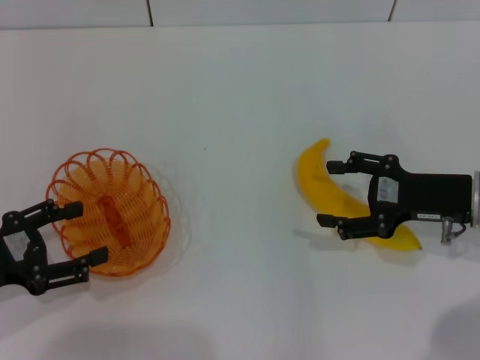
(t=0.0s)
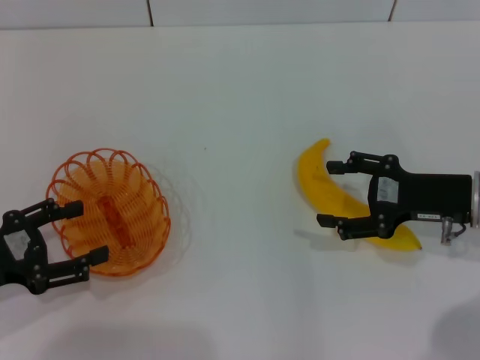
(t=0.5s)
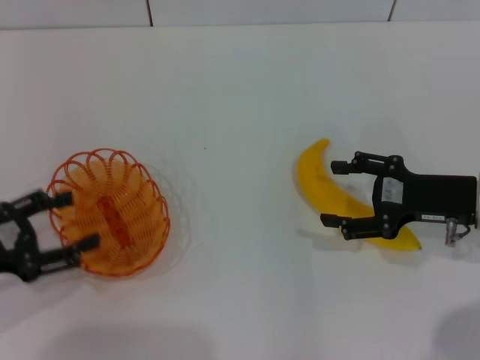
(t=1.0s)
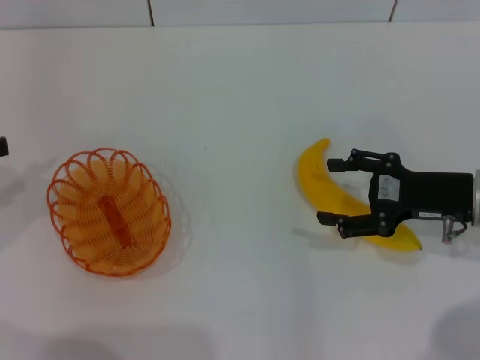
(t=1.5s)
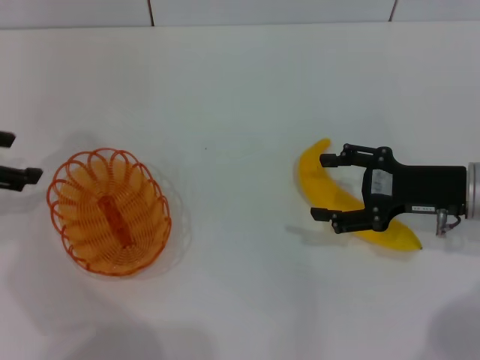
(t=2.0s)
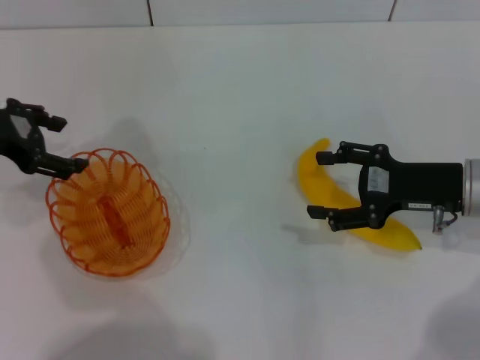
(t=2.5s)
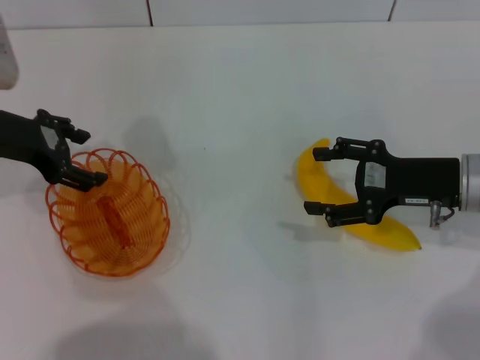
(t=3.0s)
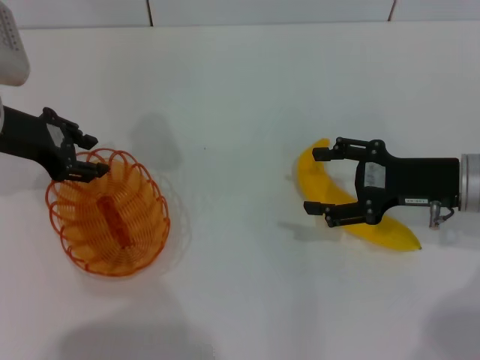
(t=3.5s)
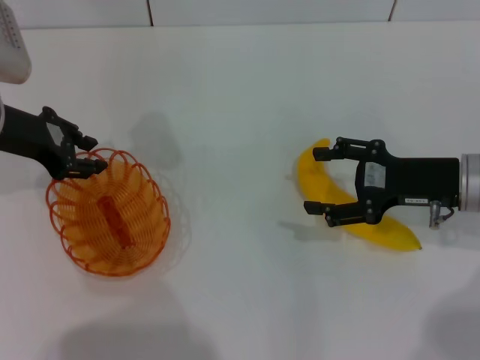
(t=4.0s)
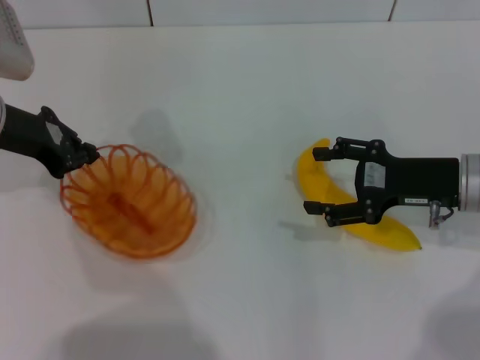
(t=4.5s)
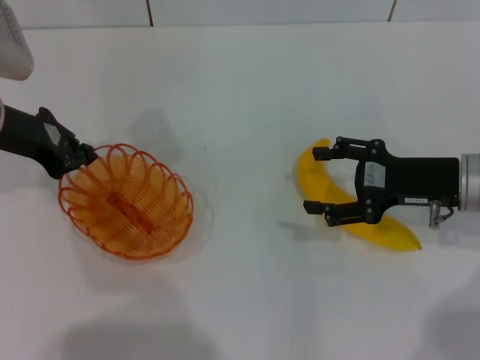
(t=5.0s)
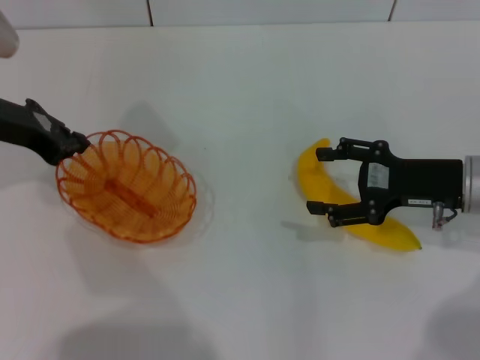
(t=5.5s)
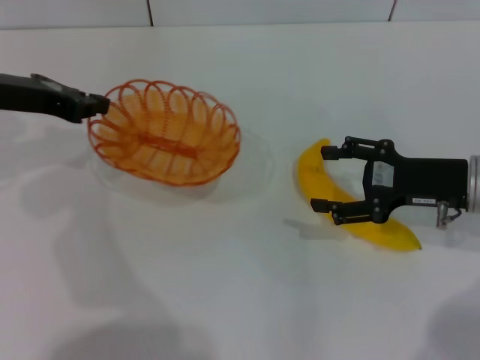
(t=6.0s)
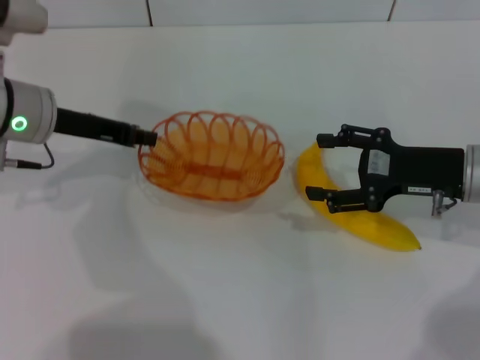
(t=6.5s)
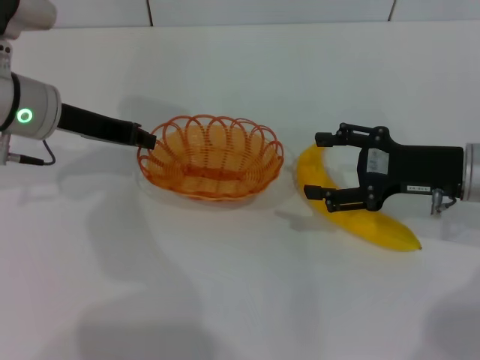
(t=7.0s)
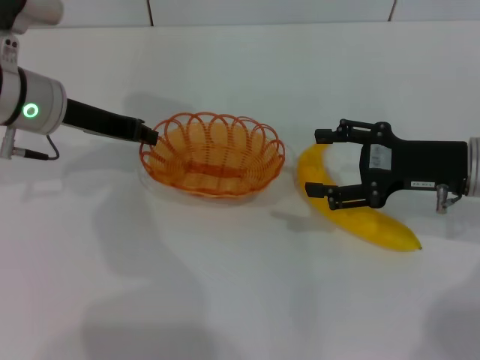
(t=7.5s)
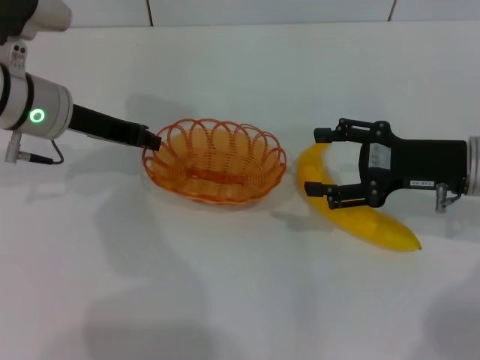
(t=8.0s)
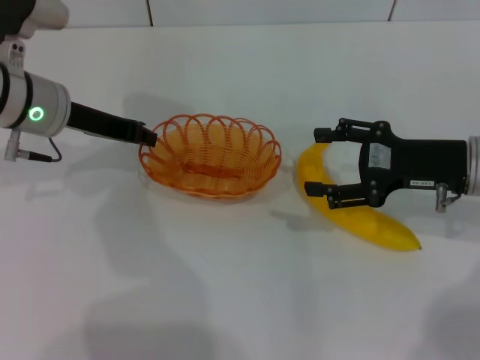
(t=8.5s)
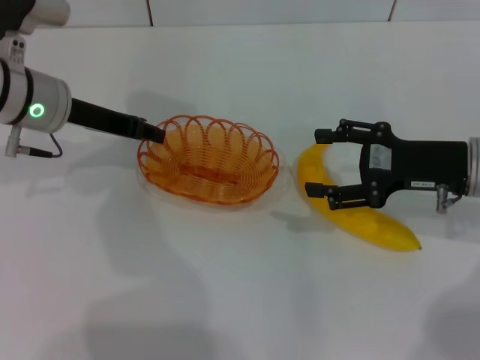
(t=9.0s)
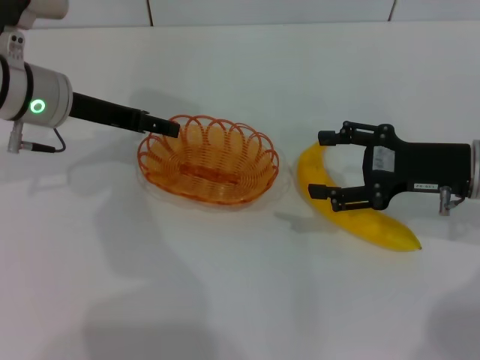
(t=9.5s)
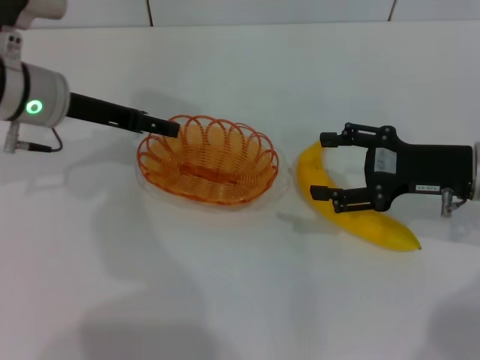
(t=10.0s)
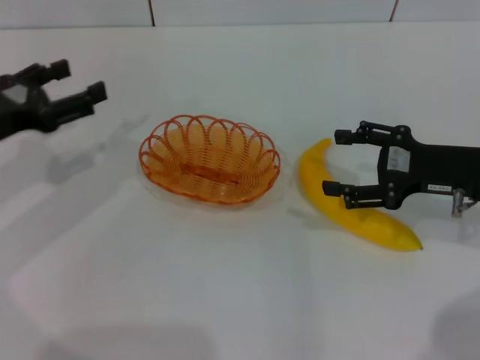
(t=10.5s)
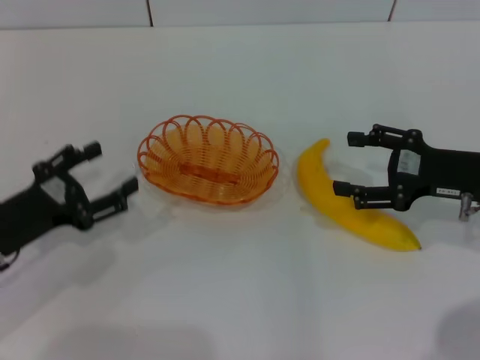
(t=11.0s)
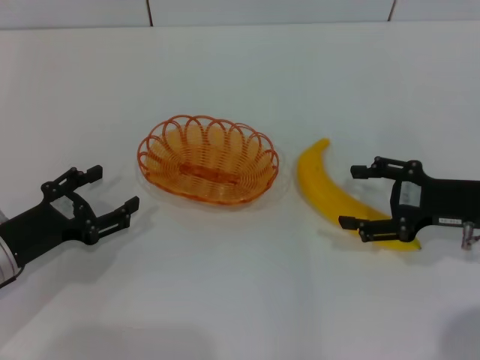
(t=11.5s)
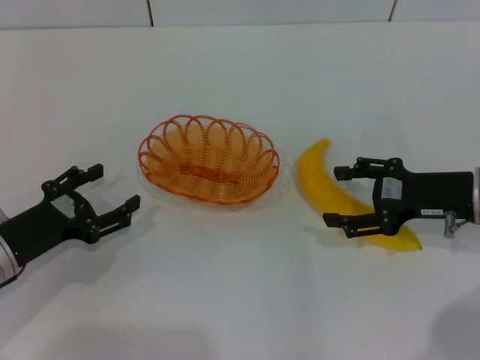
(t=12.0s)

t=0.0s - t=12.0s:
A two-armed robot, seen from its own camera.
Step, t=0.0s - t=5.5s: Pick up the basket with the left gripper.
Step, t=6.0s - t=9.5s: Place the basket in the center of view with the left gripper.
t=0.0s - t=2.0s: The left gripper shifts about 15 cm forward and upward.
t=2.0s - t=4.0s: The left gripper moves to the right, some 10 cm, and closes.
t=4.0s - t=6.0s: The left gripper closes.
t=6.0s - t=8.0s: The left gripper travels to the right by some 5 cm.
t=8.0s - t=10.0s: The left gripper opens its fingers.
t=10.0s - t=12.0s: The left gripper moves backward, downward and to the left, roughly 20 cm.

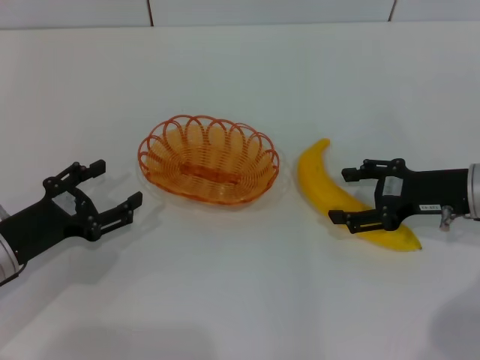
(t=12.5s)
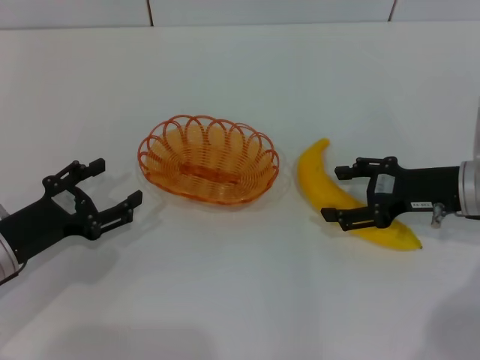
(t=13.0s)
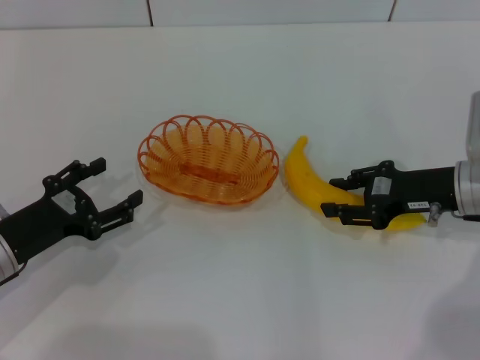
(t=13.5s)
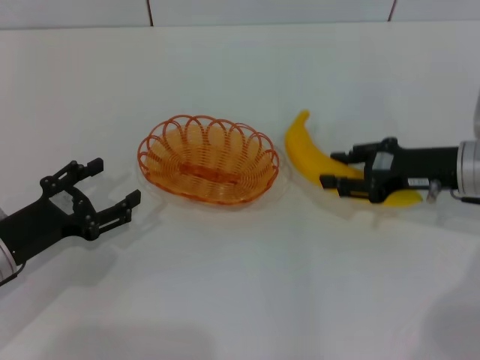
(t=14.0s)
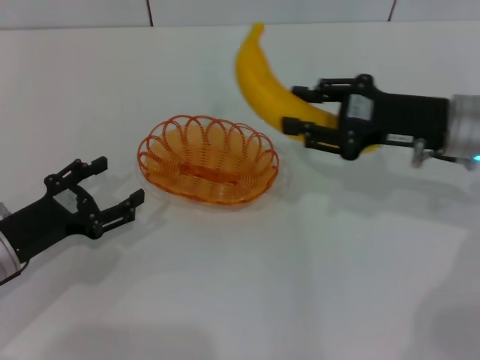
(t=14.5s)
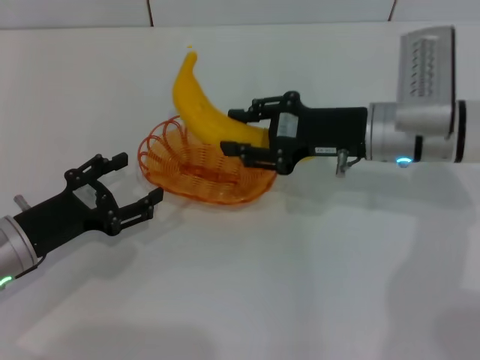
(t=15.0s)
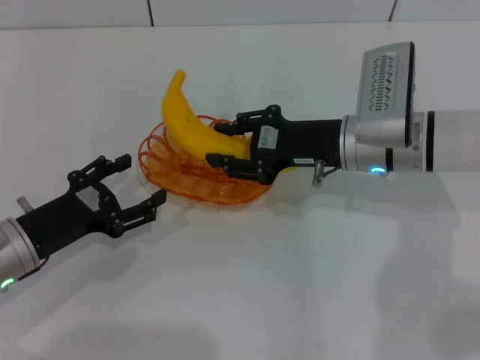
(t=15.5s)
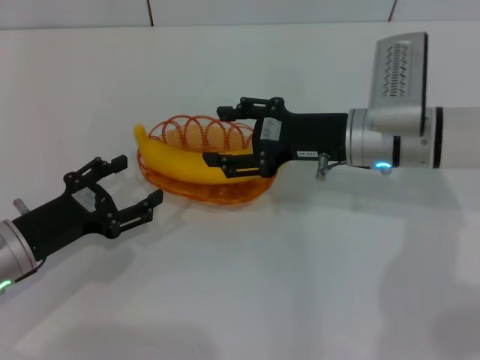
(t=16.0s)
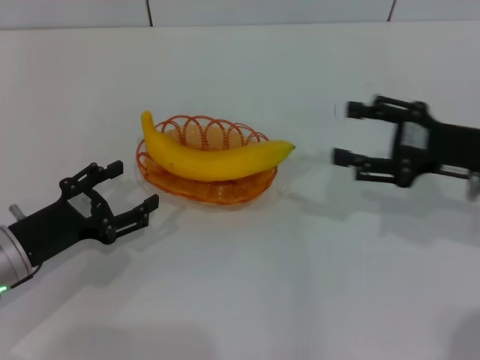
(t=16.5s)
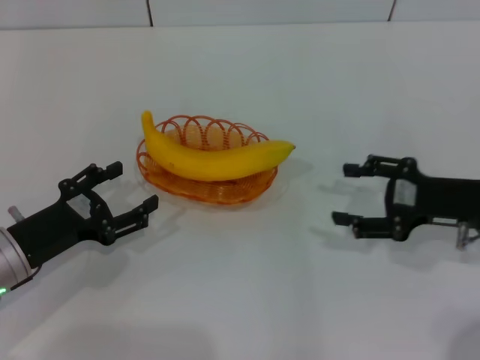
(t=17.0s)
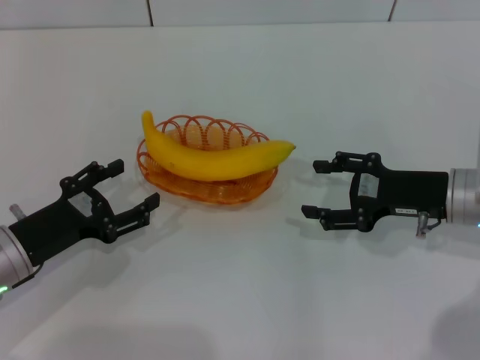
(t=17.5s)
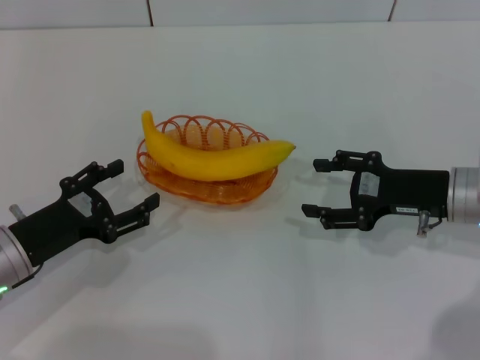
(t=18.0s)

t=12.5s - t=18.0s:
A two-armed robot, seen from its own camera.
Step, t=14.5s - t=16.0s: Place the banana into the basket with the right gripper.
t=12.5s - t=14.5s: The right gripper moves upward, approximately 5 cm, and closes its fingers.
t=14.5s - t=16.0s: The right gripper shifts about 10 cm to the left.
t=16.0s - t=18.0s: The right gripper moves to the right and backward, approximately 10 cm, and opens its fingers.

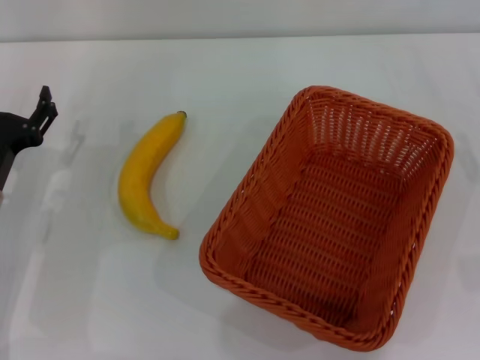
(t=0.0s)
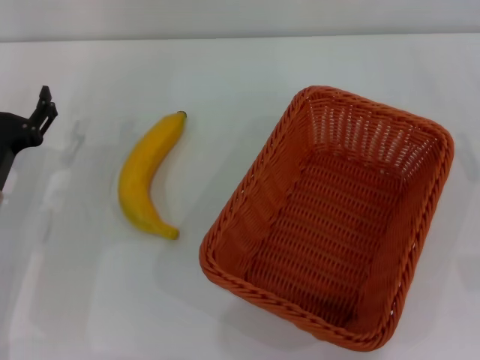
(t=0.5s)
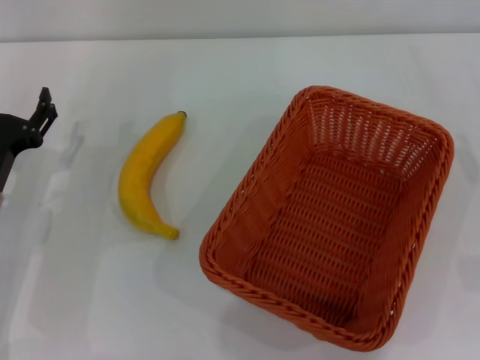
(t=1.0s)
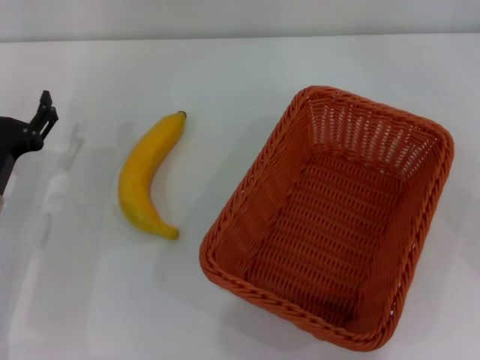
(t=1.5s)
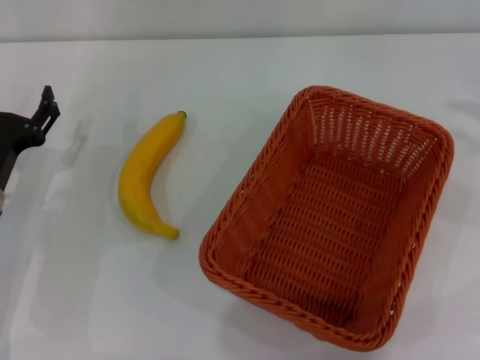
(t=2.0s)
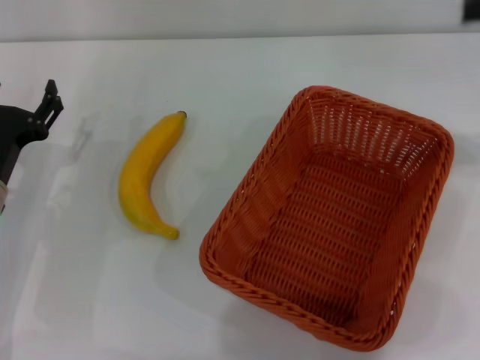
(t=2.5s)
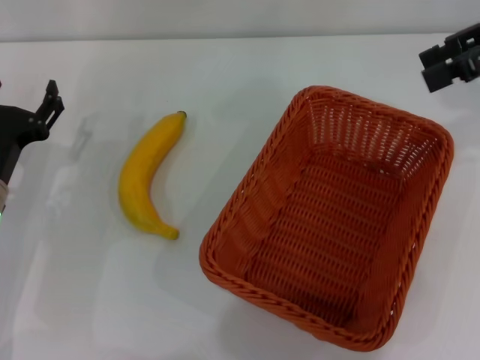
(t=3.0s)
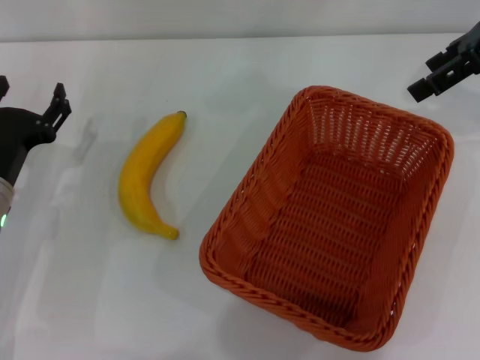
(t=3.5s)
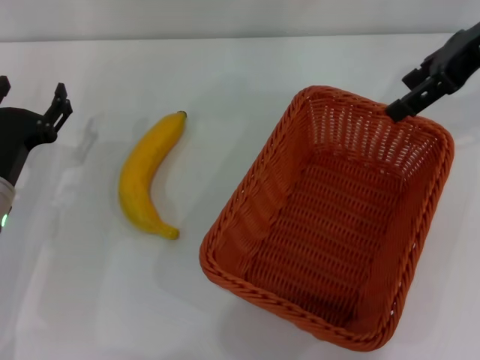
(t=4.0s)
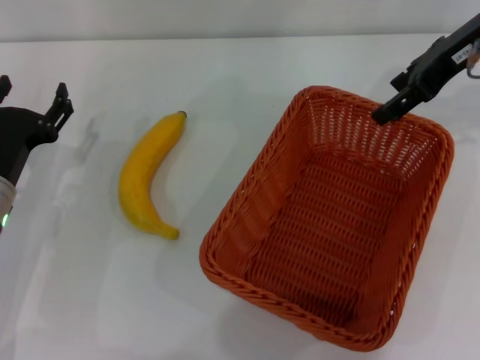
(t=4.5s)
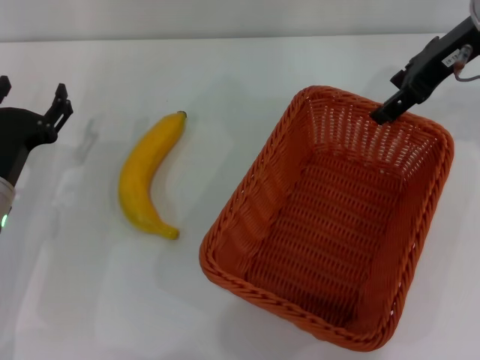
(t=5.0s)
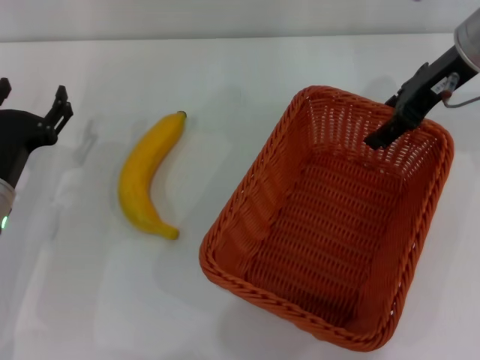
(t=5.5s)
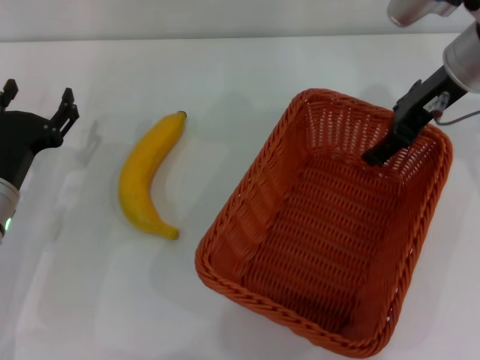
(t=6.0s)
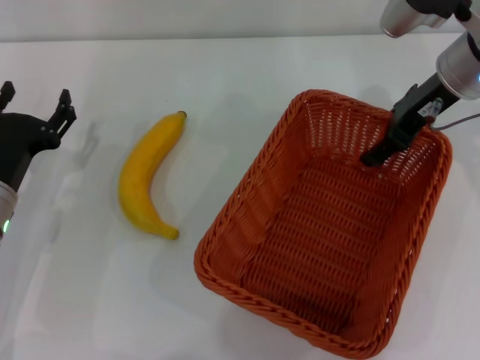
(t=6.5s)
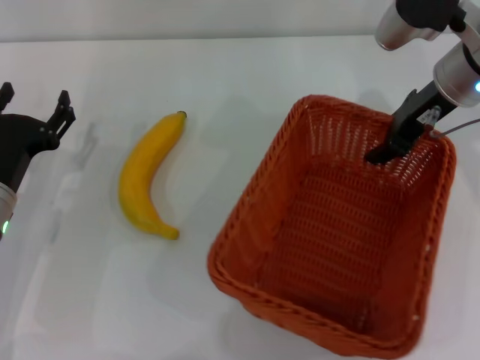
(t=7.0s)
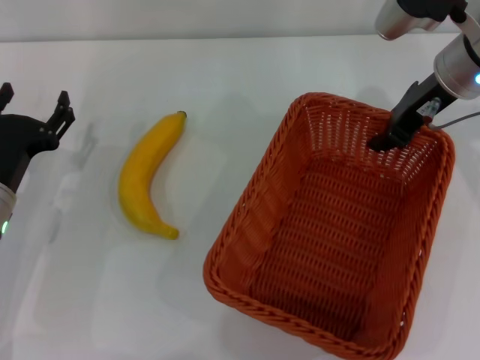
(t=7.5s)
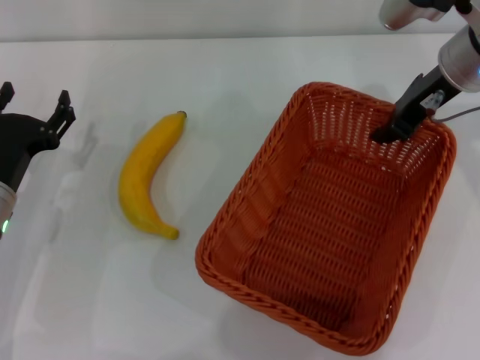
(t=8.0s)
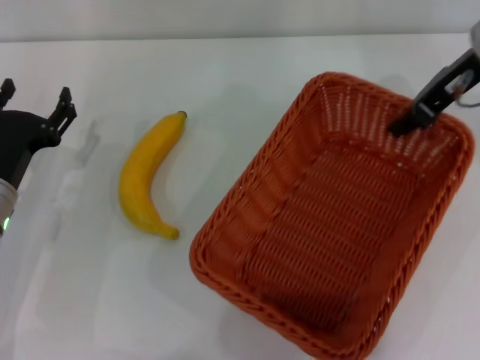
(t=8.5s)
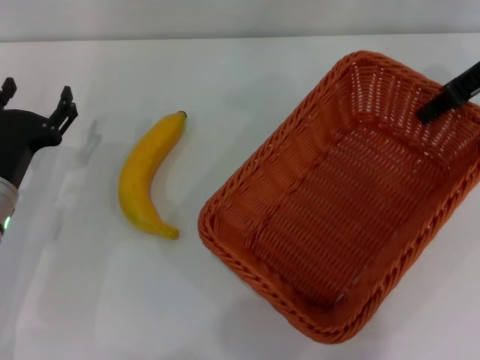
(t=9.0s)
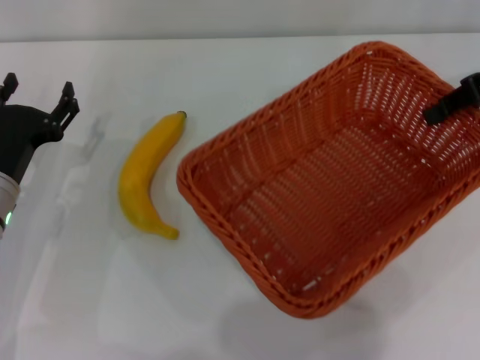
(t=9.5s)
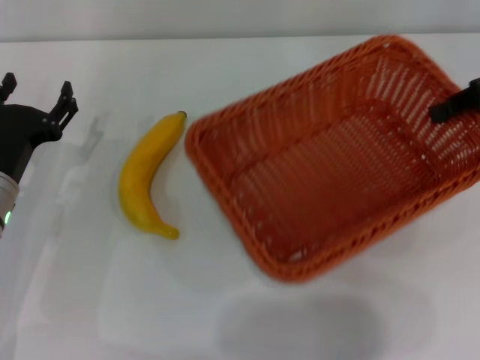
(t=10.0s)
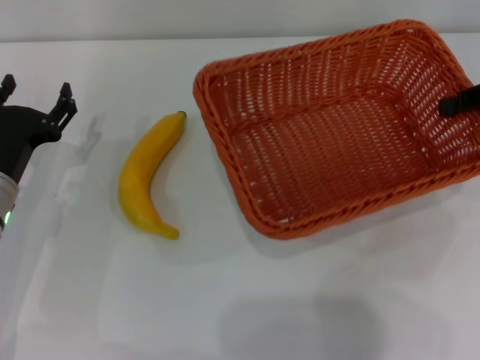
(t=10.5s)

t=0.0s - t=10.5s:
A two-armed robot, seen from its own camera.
Step, t=0.0s - t=8.5s: Pick up the light basket with the right gripper.
t=2.0s - t=4.0s: The right gripper moves to the left and forward, about 20 cm.
t=4.0s - t=6.5s: The right gripper moves downward, roughly 10 cm.
t=6.5s - t=8.5s: The right gripper closes up.
t=8.5s - t=10.5s: The right gripper is displaced to the right by roughly 15 cm.
